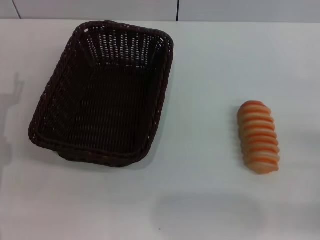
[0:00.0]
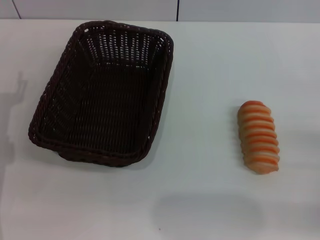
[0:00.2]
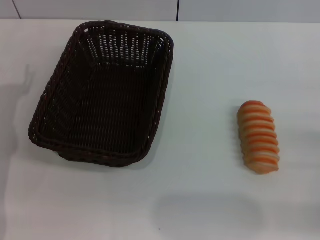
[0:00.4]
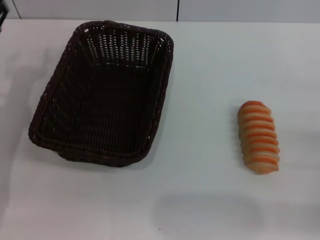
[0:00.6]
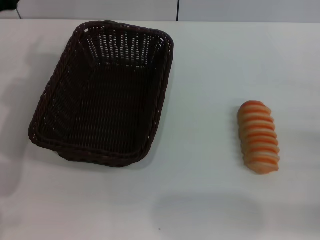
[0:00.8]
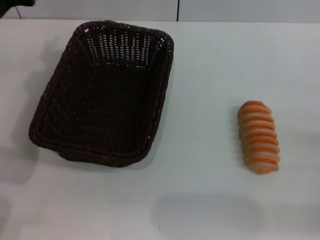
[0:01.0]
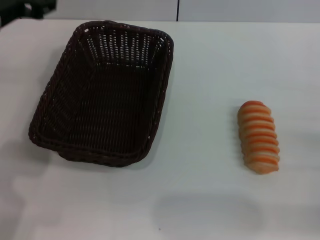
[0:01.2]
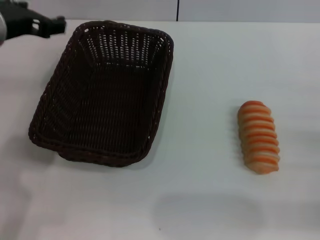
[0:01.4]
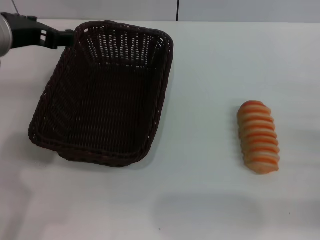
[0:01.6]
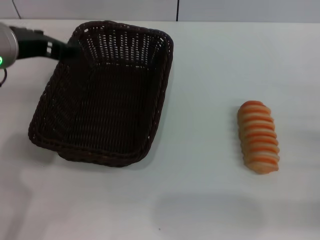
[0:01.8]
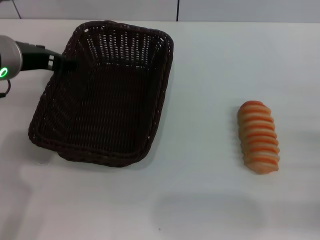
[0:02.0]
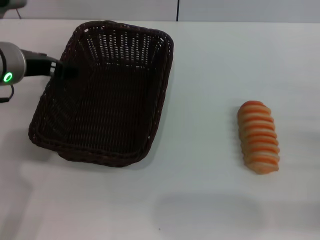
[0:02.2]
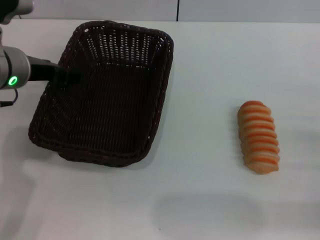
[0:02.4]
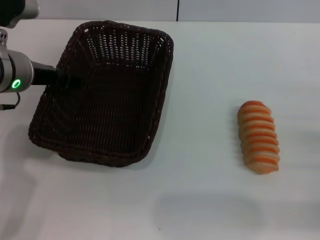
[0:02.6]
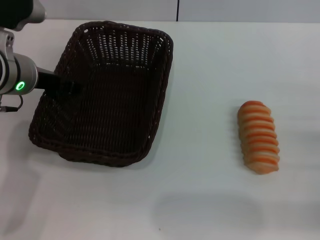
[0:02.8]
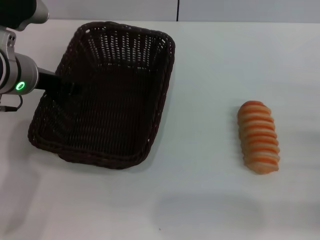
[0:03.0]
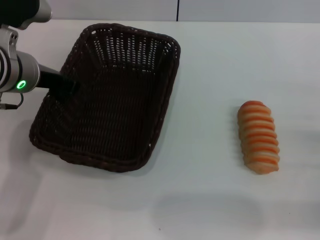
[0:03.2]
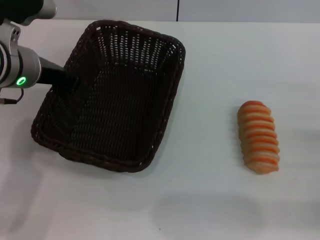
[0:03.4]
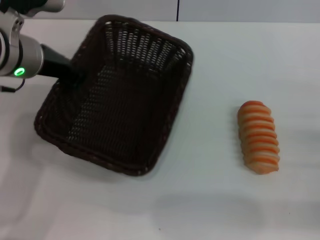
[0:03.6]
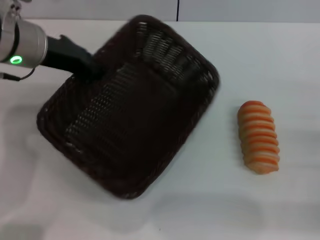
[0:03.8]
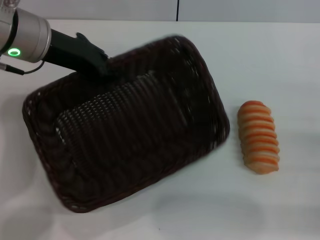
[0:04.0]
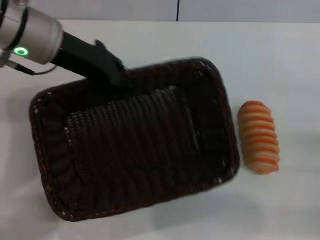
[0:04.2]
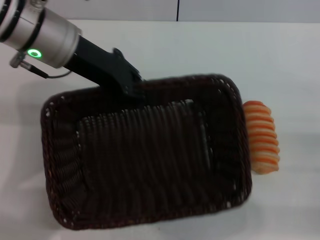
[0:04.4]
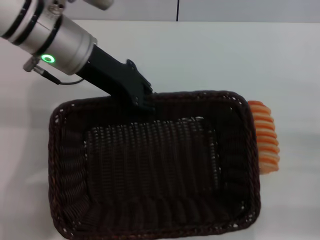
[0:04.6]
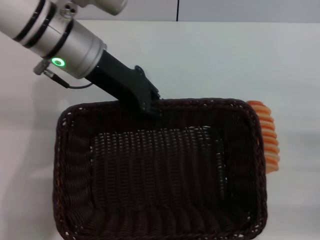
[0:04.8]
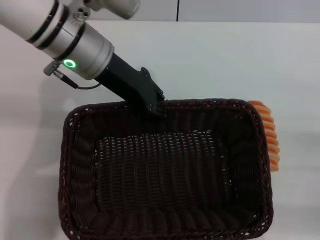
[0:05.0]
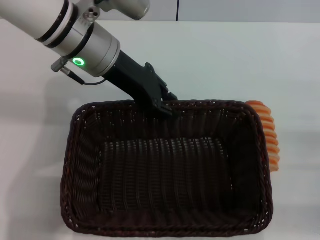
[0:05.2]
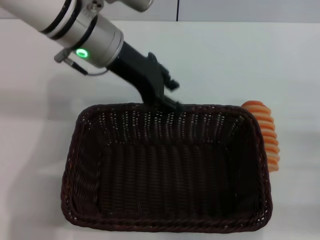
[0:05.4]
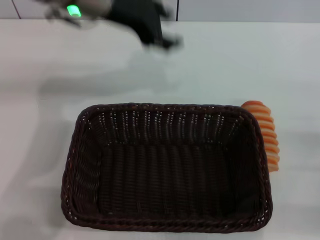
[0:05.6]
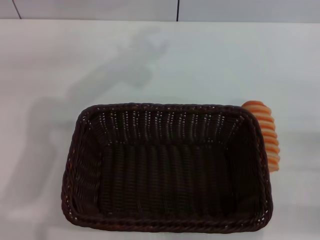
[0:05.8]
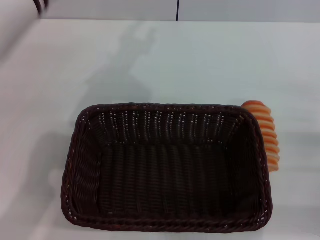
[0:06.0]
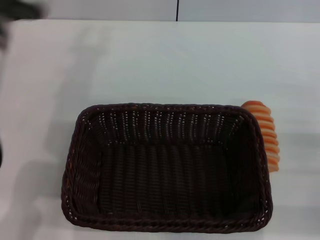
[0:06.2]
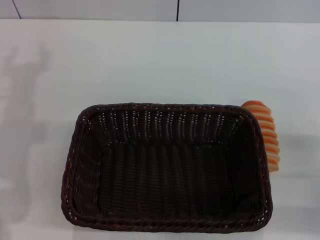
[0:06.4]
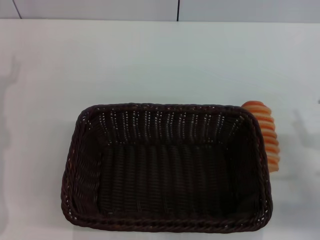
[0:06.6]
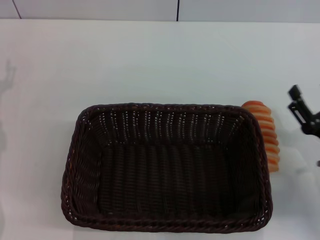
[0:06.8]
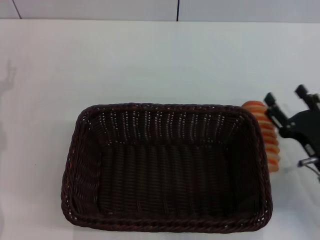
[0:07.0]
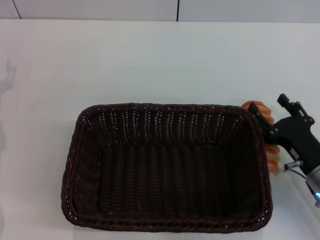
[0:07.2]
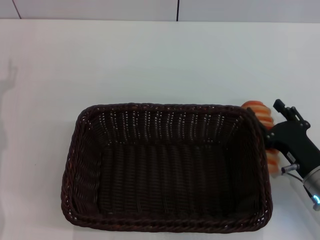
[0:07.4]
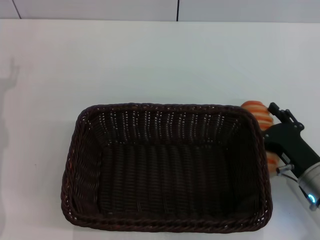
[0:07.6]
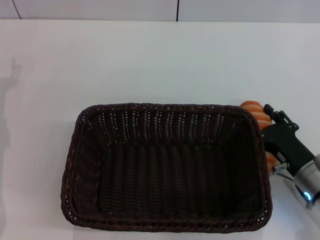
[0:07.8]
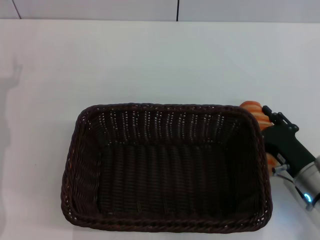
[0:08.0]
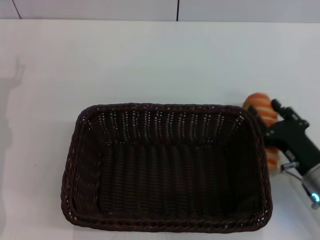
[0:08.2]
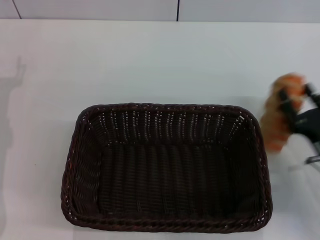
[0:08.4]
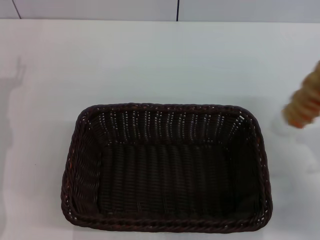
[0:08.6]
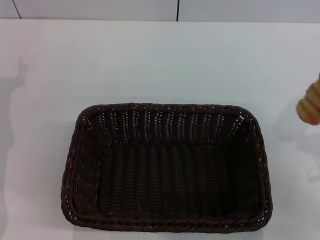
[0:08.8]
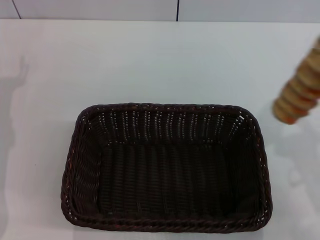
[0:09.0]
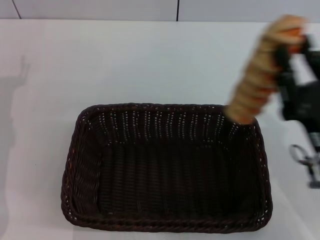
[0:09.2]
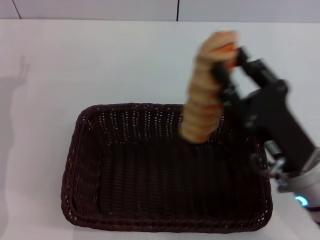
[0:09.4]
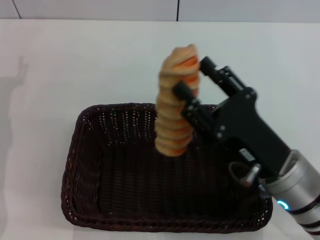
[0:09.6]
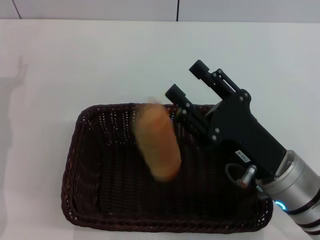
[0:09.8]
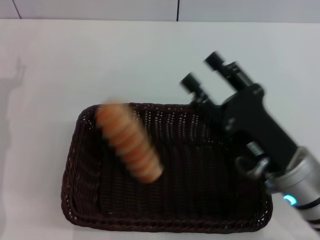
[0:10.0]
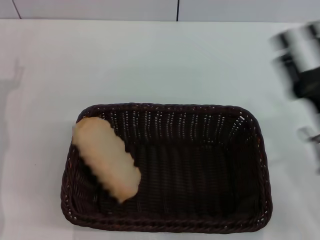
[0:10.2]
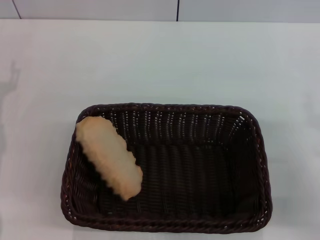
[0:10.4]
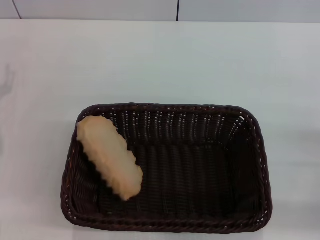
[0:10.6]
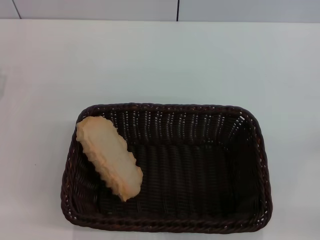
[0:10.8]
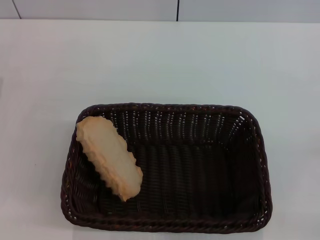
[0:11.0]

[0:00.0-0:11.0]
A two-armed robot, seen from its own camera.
Step, 0:00.0 to 0:03.6: Pick up the dark basket with the left gripper.
Step, 0:03.8 to 0:06.4: Place the dark basket in the center of view with the left gripper.
Step, 0:06.6 to 0:08.8: Pick up the long bread with the right gripper.
Step, 0:09.0 to 0:10.0: Place the long bread into the dark basket with the right gripper.
0:00.0 to 0:01.6: The left gripper heads upward and to the right, covering about 20 cm.
0:01.6 to 0:03.2: The left gripper moves downward, some 5 cm, and closes up.
0:03.2 to 0:04.8: The left gripper moves to the right, about 5 cm, and closes up.
0:04.8 to 0:06.2: The left gripper heads to the left, covering approximately 5 cm, and opens its fingers.
0:06.2 to 0:07.8: The right gripper moves to the left and downward, approximately 10 cm; the left gripper is displaced downward and to the left by some 15 cm.
0:07.8 to 0:09.4: The right gripper shifts about 10 cm upward and to the left, and closes.
0:09.4 to 0:11.0: The right gripper moves to the right, approximately 20 cm, and opens.

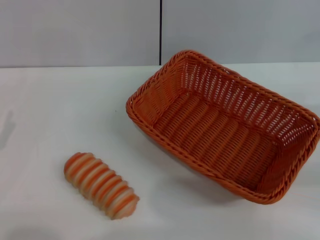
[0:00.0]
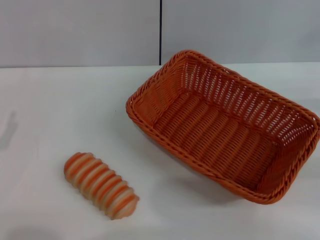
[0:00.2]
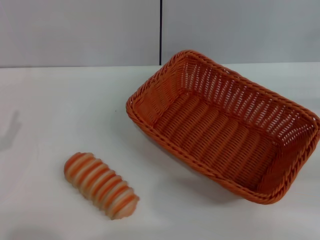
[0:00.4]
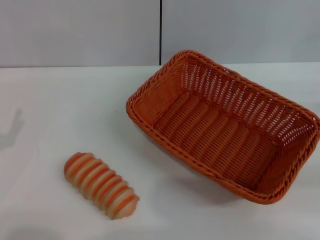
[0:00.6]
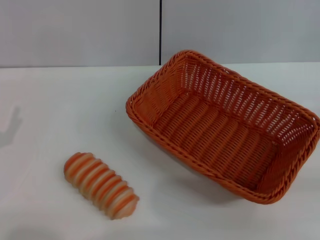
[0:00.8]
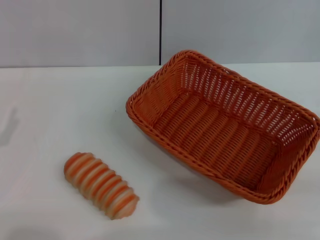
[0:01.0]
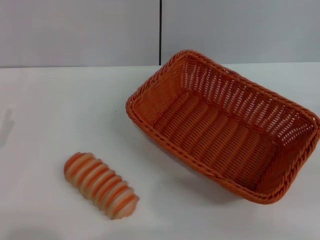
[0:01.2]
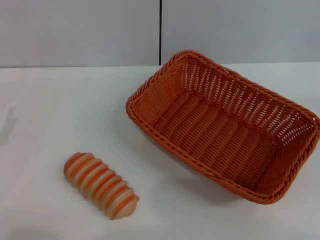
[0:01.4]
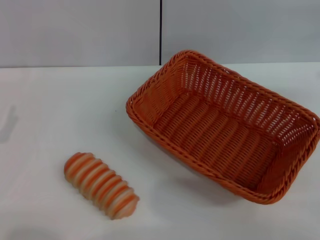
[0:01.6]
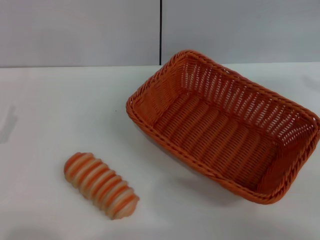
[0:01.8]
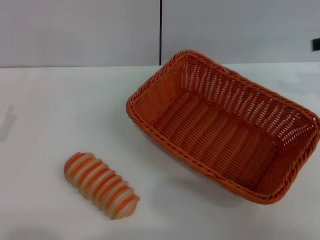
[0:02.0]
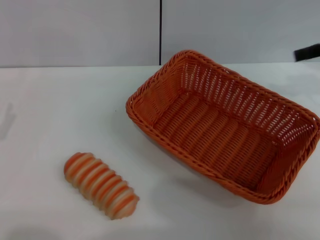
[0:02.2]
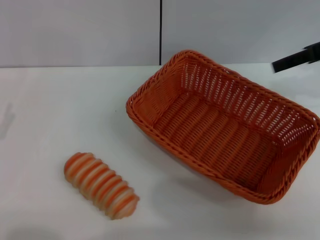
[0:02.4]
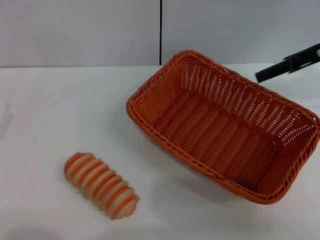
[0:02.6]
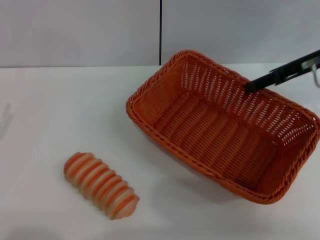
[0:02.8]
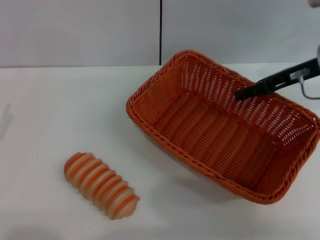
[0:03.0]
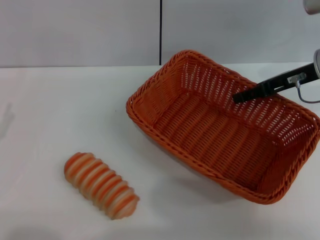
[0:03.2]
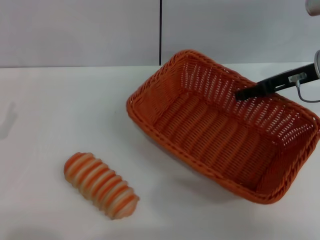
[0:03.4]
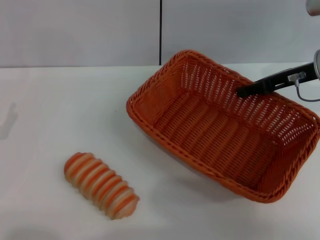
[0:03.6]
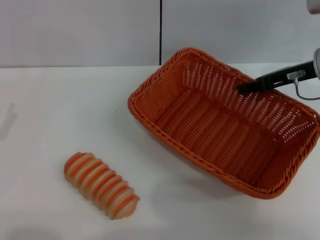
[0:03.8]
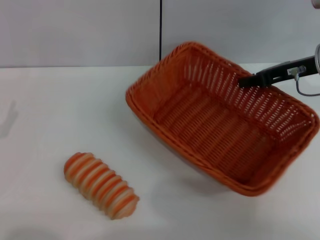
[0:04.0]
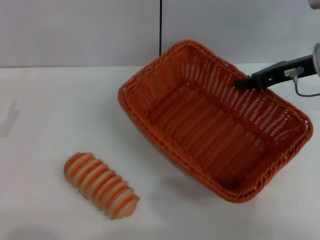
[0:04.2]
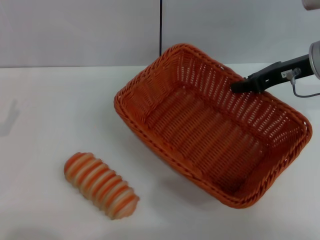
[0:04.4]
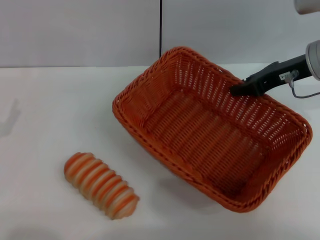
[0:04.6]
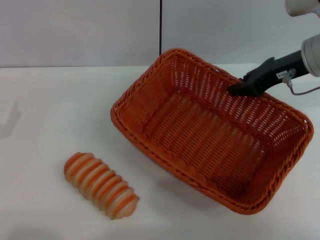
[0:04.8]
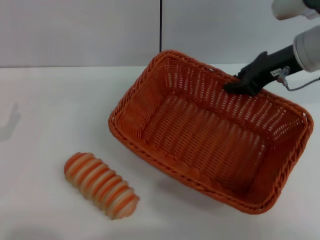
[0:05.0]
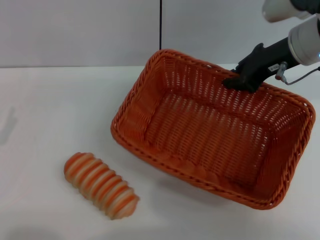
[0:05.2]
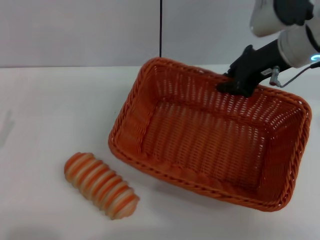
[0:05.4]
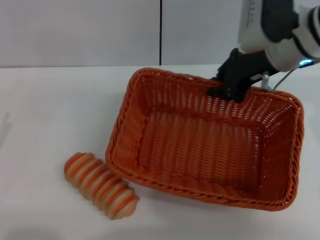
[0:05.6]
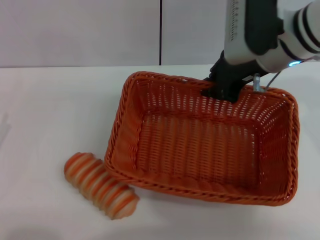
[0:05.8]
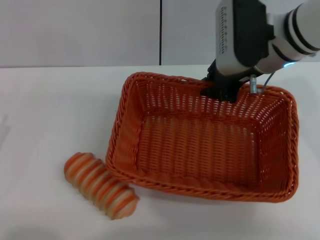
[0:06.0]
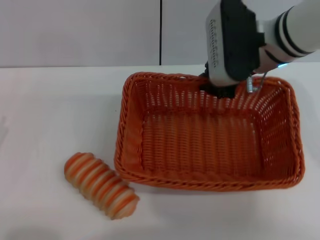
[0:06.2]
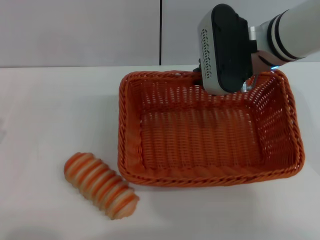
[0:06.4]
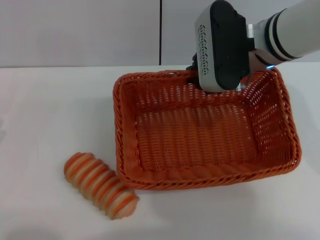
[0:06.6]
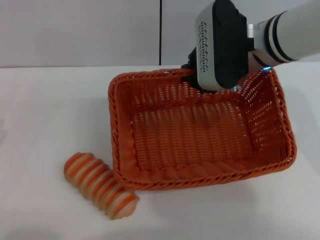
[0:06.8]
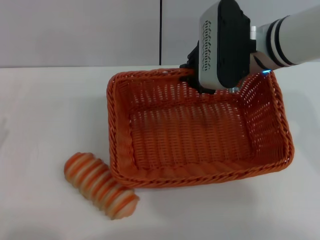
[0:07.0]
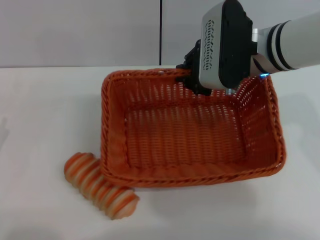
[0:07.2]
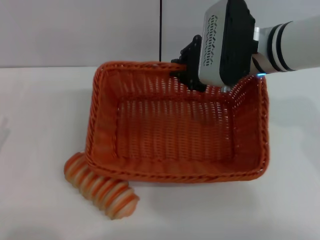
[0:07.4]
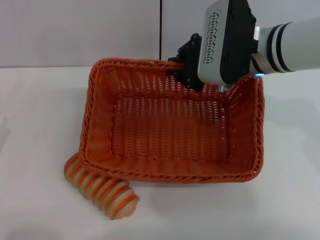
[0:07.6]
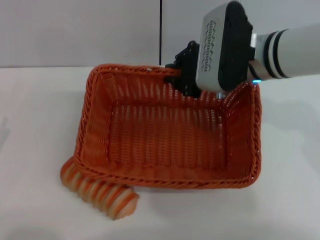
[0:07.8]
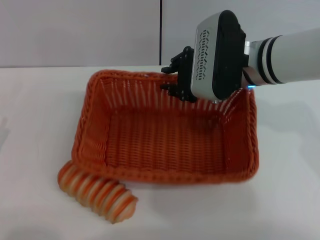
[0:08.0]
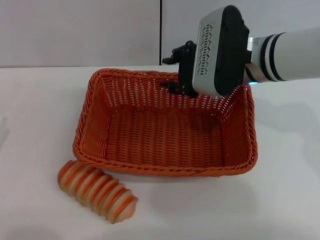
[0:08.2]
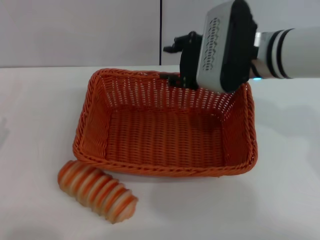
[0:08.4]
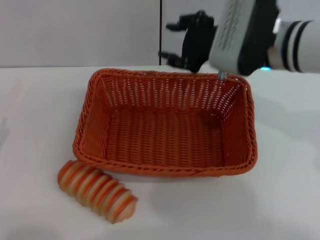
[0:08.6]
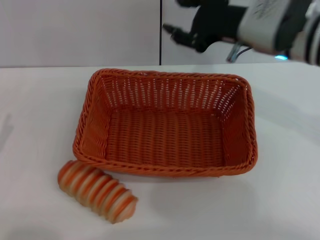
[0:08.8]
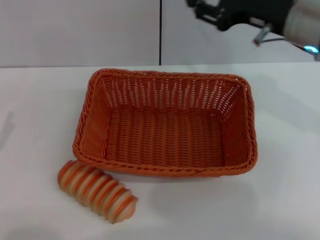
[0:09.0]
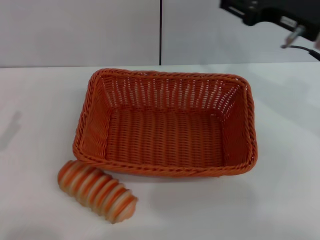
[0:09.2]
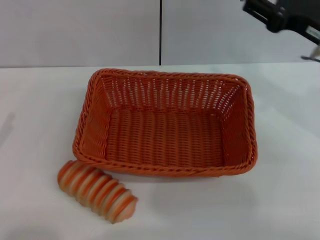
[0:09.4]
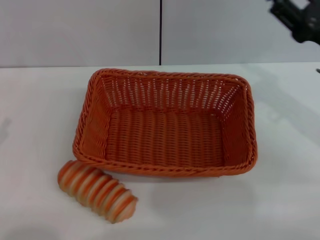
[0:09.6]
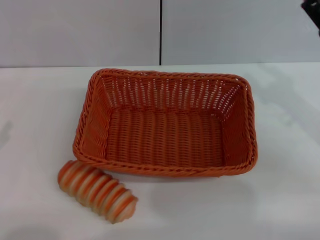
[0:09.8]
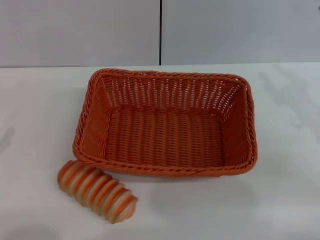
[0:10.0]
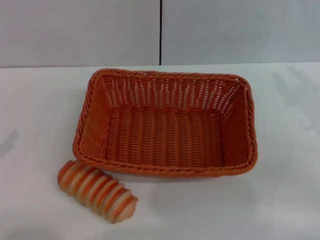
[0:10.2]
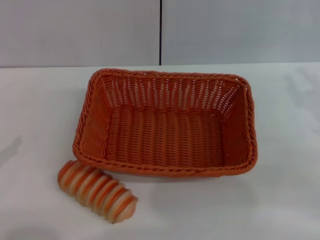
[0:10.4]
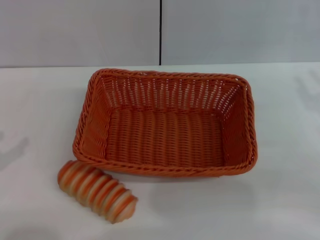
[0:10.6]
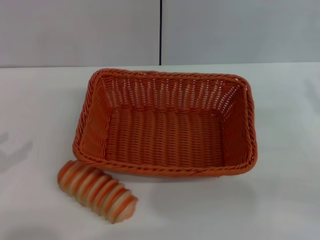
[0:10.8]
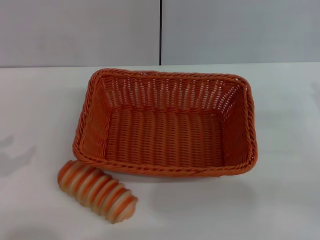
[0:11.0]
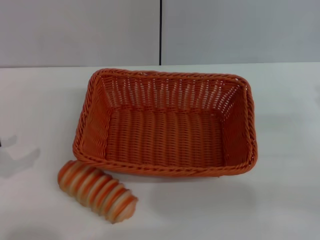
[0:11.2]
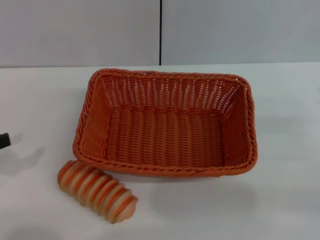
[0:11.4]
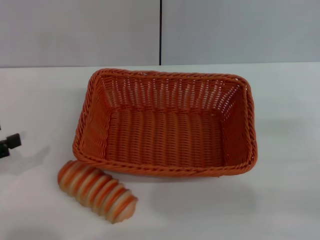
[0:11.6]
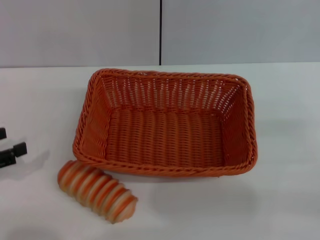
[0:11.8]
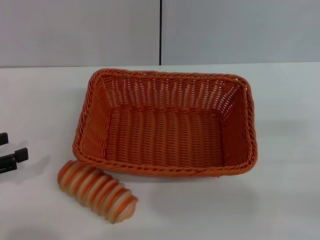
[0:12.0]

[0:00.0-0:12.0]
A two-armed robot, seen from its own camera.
Step, 0:00.0 to 0:05.4: Pick up the light basket with the right gripper.
Step, 0:05.6 to 0:08.4: Place the light basket in the center of view with the right gripper.
0:01.6 to 0:03.0: The right gripper travels to the left and forward by about 15 cm.
0:03.0 to 0:04.4: The right gripper closes its fingers.
0:04.4 to 0:06.0: The right gripper travels to the left by about 10 cm.
0:07.6 to 0:09.0: The right gripper goes some 5 cm to the right, and opens up.
0:09.0 to 0:10.4: The right gripper heads to the right, downward and backward, covering some 20 cm.
